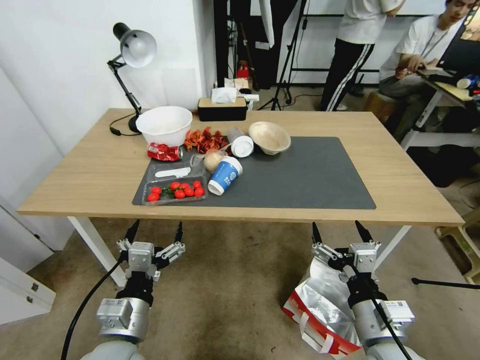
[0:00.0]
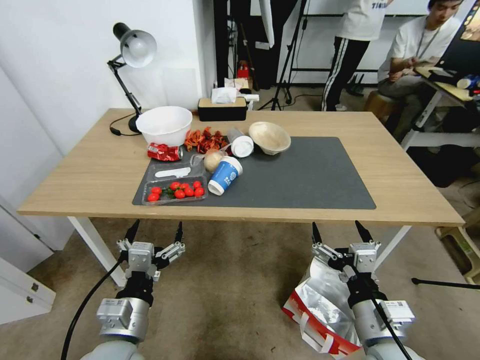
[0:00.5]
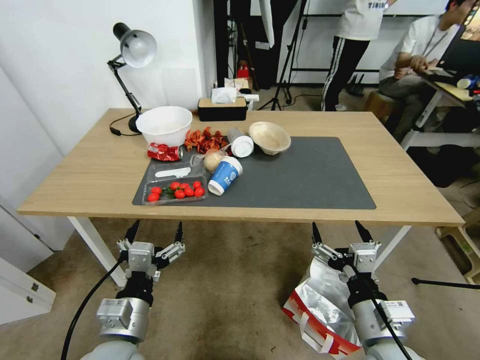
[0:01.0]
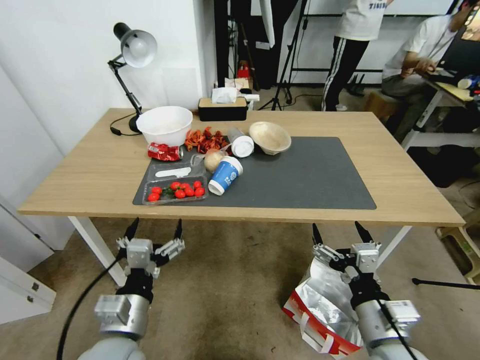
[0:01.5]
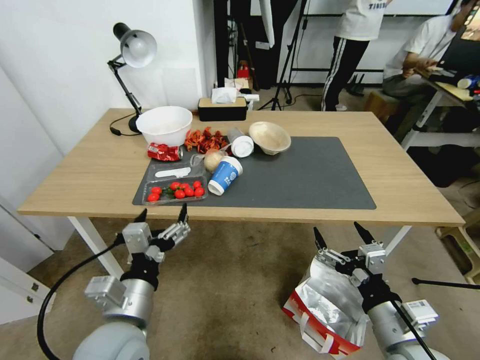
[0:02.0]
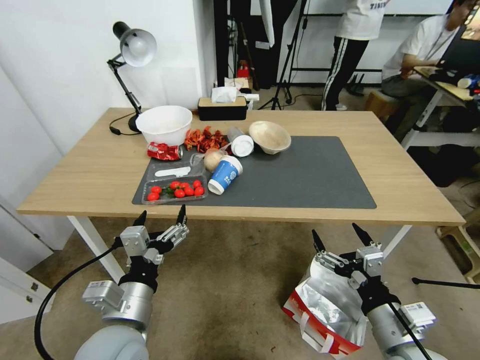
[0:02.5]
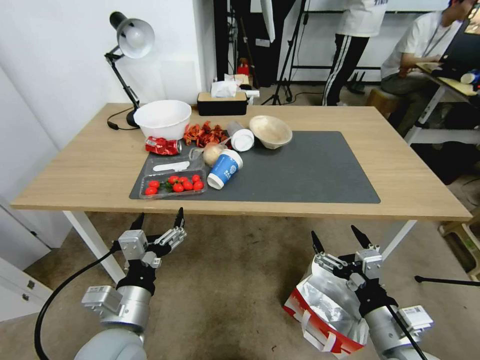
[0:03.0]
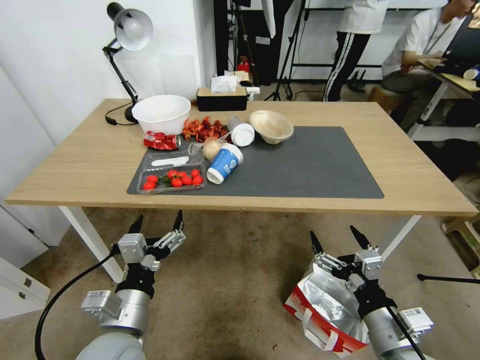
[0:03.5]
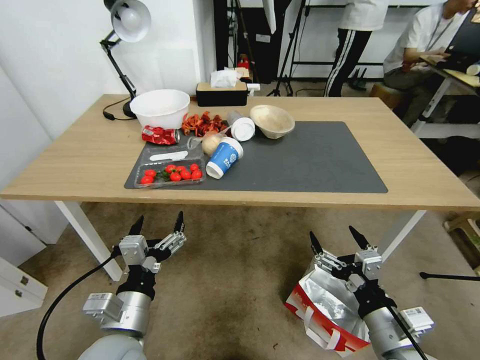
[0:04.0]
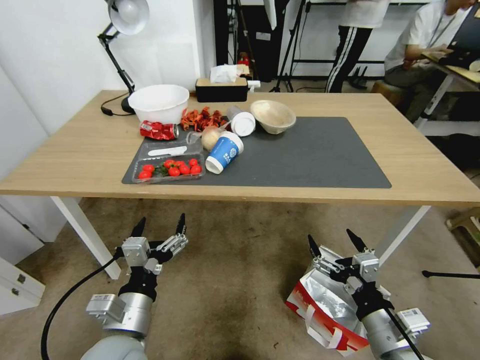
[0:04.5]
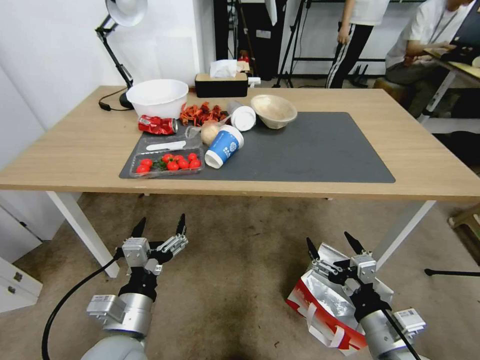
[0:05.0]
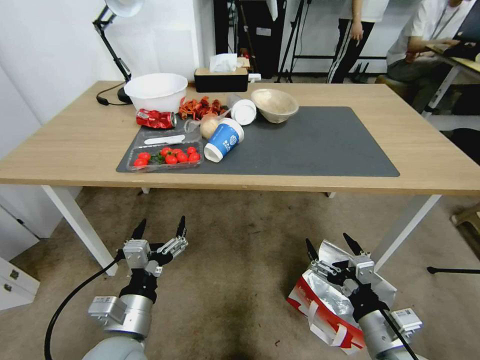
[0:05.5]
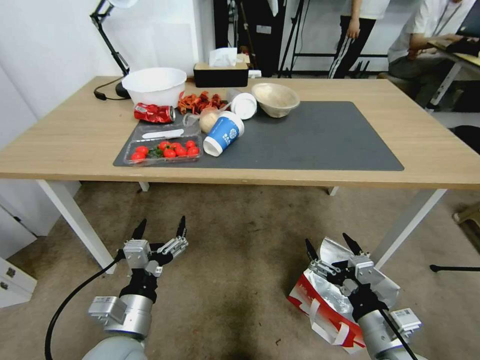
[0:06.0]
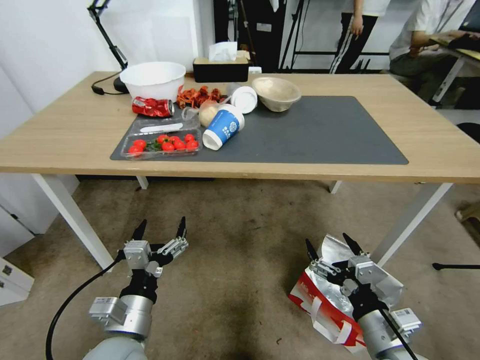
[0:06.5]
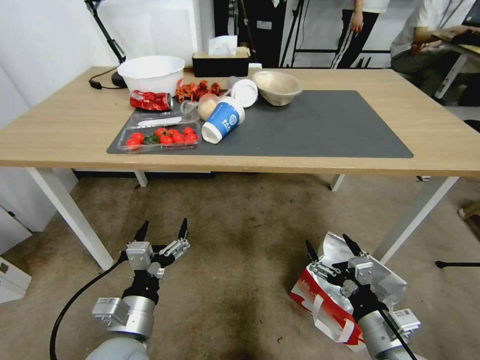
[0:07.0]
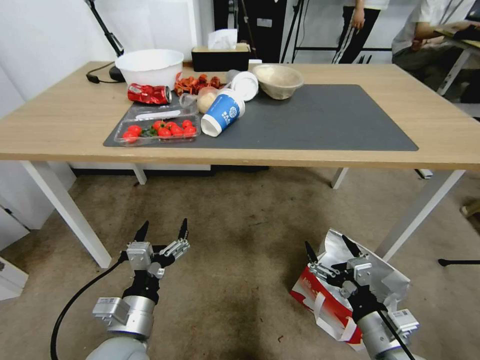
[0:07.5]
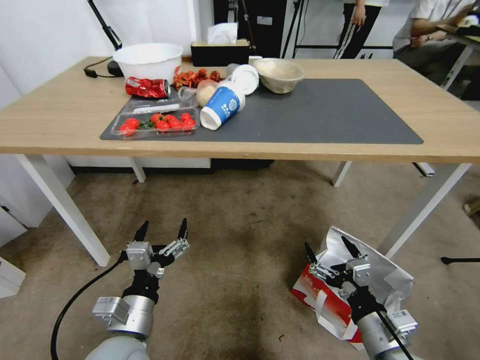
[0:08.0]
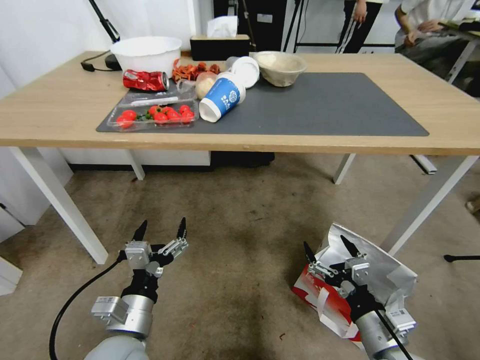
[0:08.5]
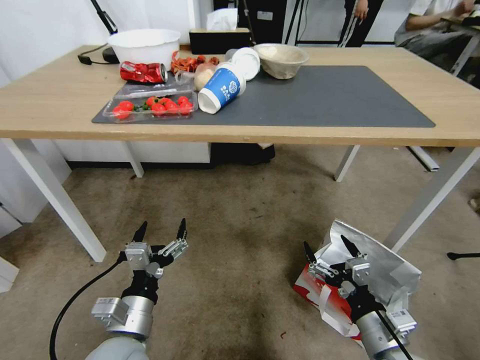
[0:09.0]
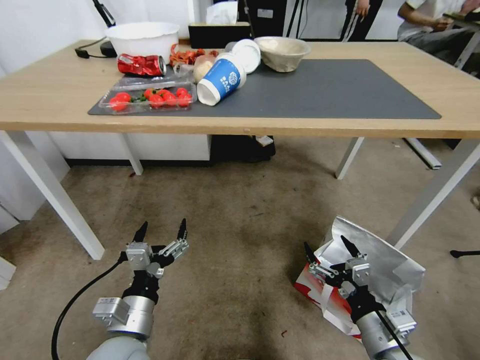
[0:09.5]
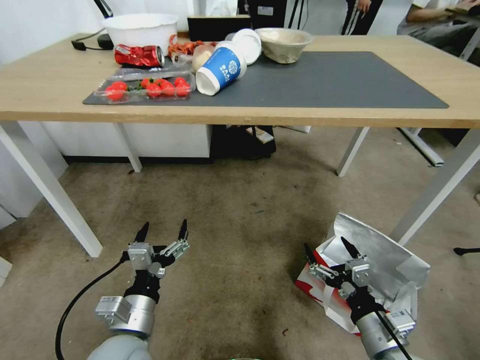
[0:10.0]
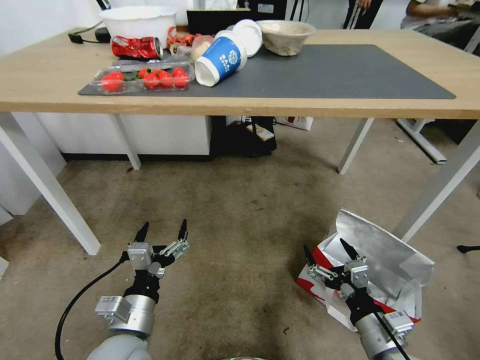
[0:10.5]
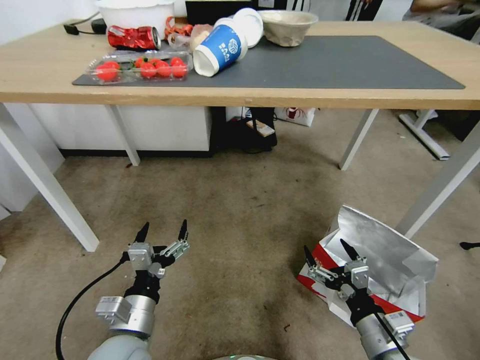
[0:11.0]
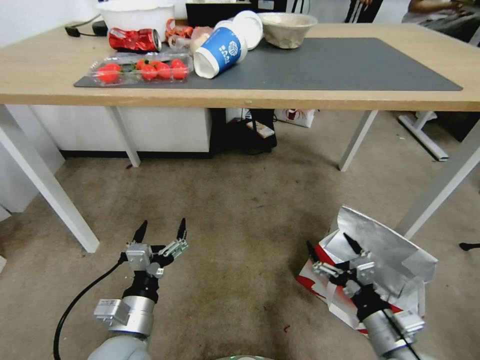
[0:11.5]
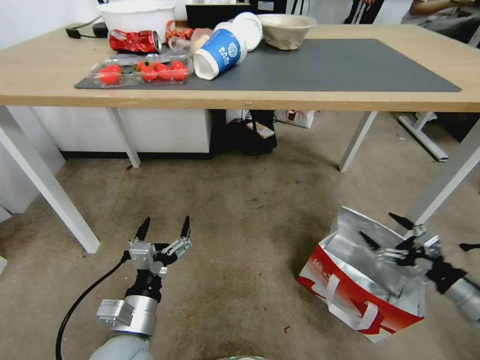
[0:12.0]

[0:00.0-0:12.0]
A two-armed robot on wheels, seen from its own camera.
Task of the whole recording: Pick up the food delivery bag from the floor and place it on the table.
0:10.0 to 0:12.0: The right gripper goes some 20 cm to the right.

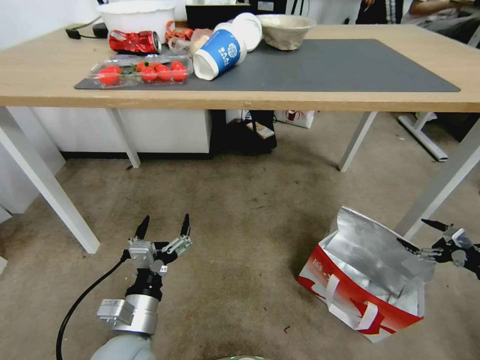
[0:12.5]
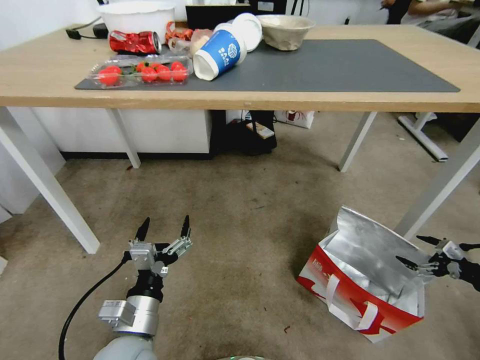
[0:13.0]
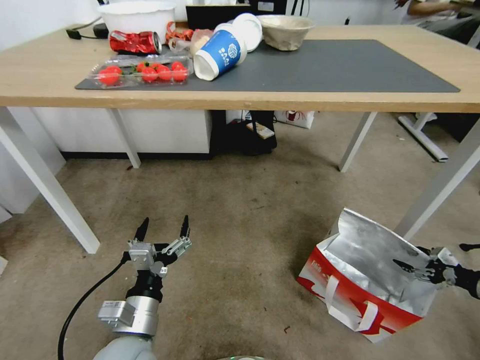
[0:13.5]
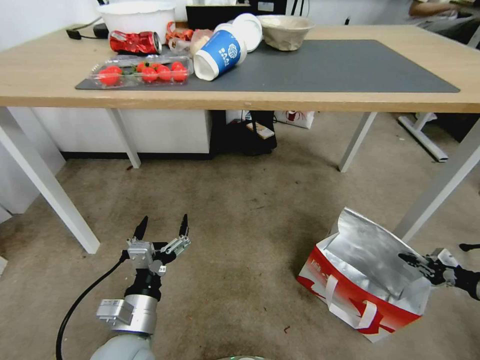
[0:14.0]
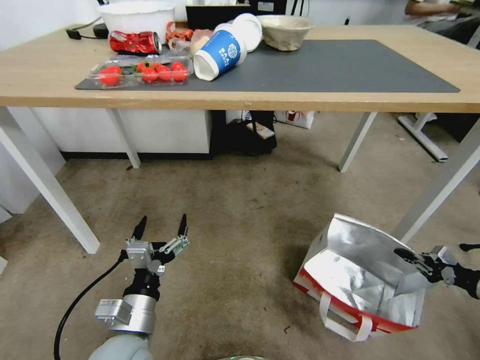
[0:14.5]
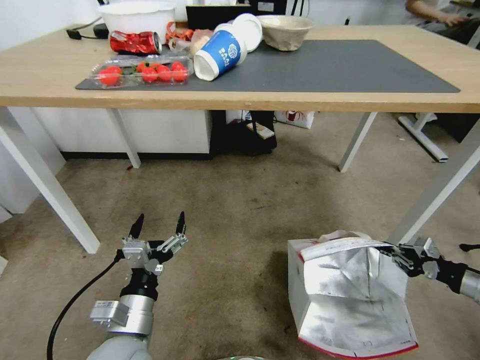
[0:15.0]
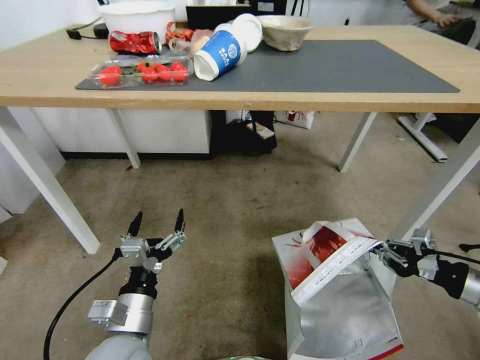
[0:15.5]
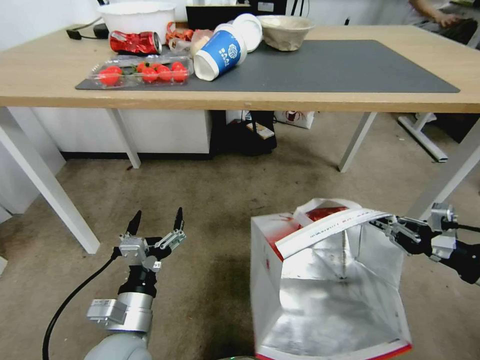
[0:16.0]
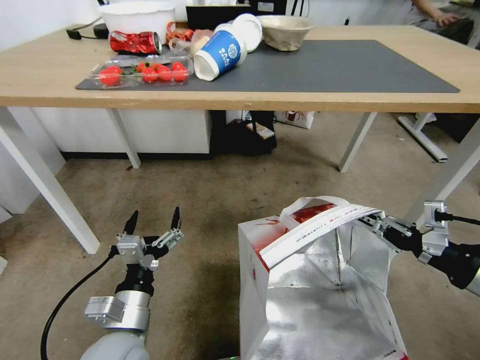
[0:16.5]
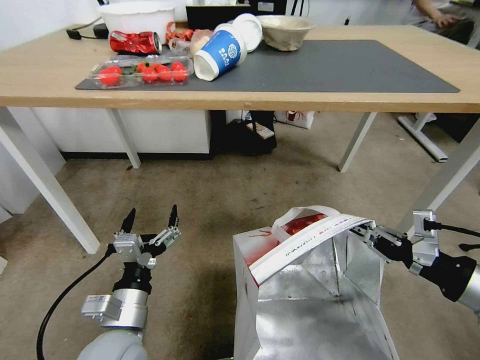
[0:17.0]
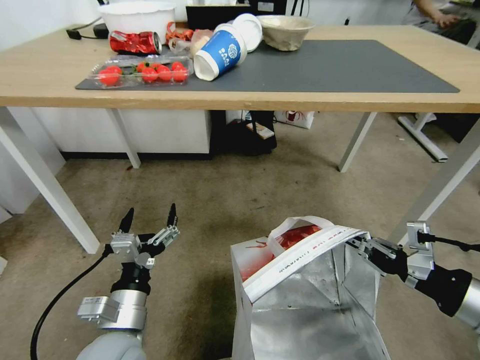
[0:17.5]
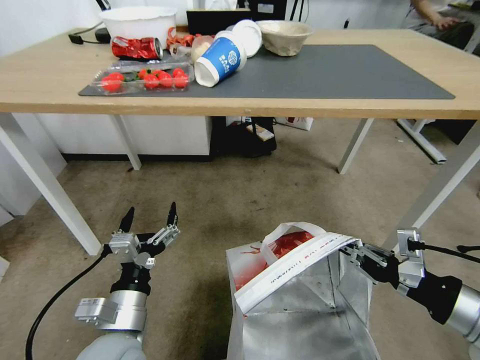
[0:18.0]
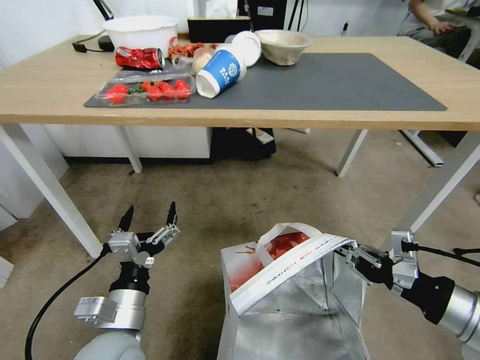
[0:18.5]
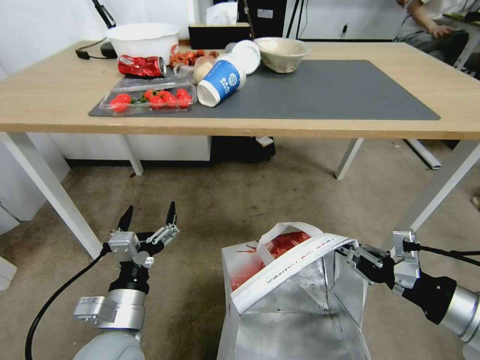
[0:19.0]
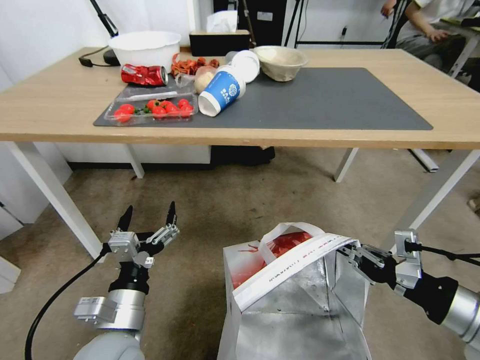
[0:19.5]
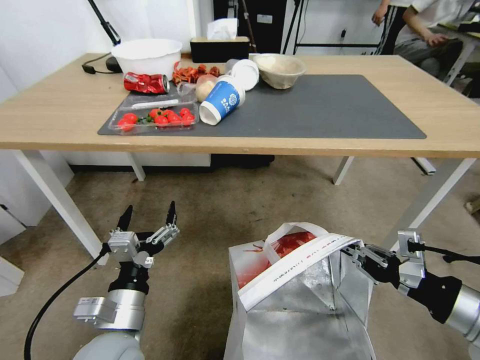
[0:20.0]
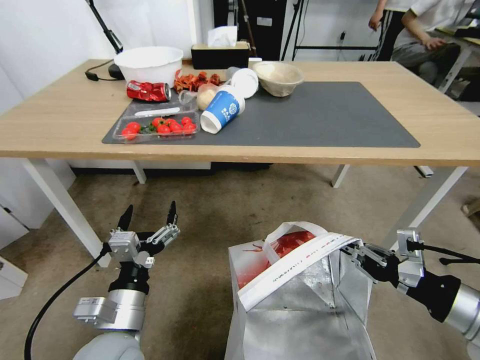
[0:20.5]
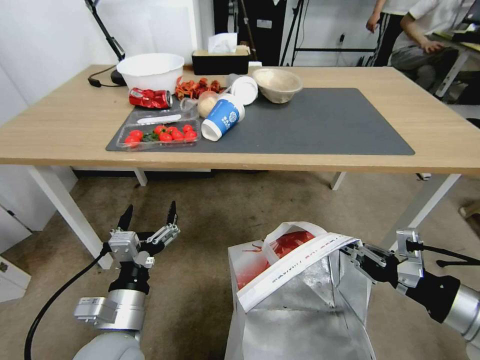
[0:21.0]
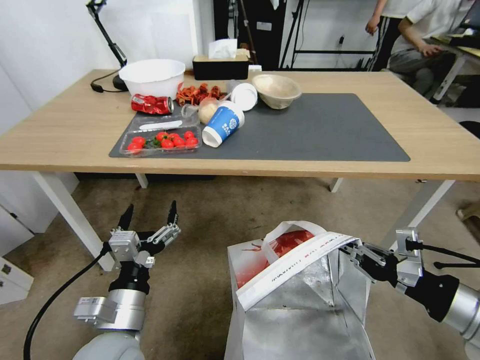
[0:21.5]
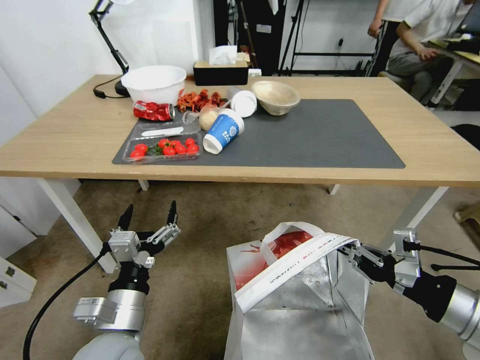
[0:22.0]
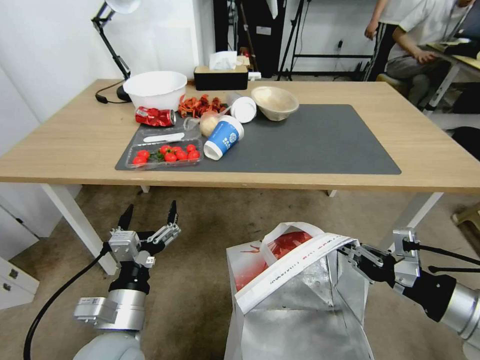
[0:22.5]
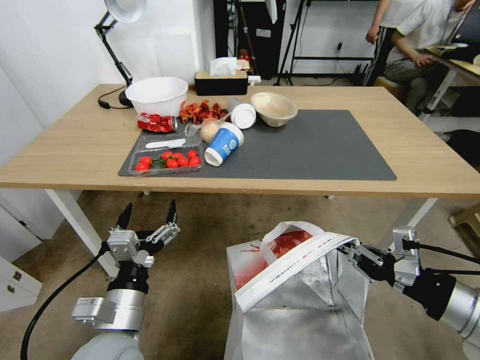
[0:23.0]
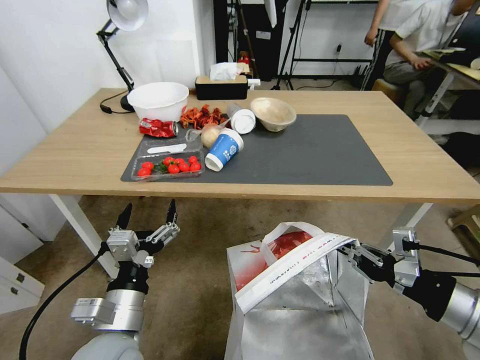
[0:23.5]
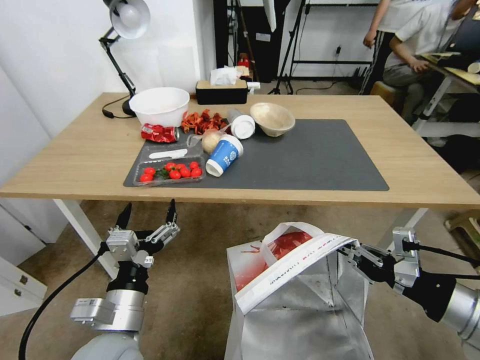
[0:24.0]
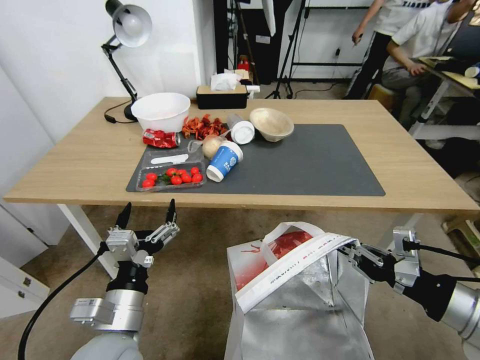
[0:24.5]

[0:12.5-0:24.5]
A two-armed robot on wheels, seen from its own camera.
Task of the whole recording: Pick up the food delivery bag from the floor and place it on the table.
0:12.5 to 0:14.5: The right gripper closes.
0:14.5 to 0:16.5: The right gripper travels to the left and upward by about 30 cm.
0:16.5 to 0:18.5: The right gripper ends up some 5 cm from where it was.

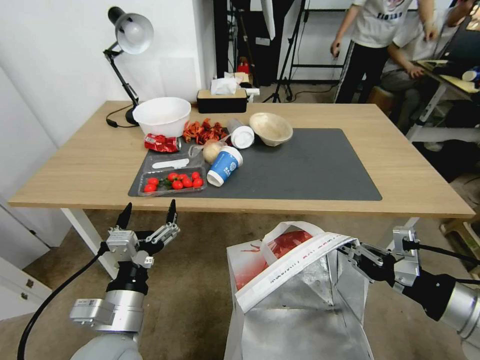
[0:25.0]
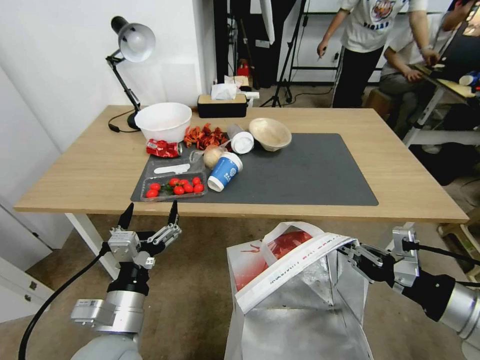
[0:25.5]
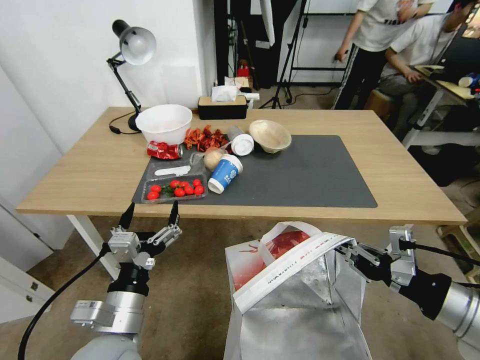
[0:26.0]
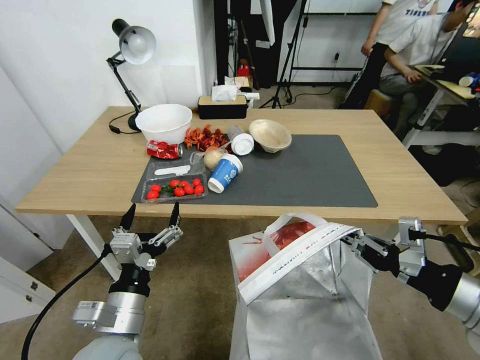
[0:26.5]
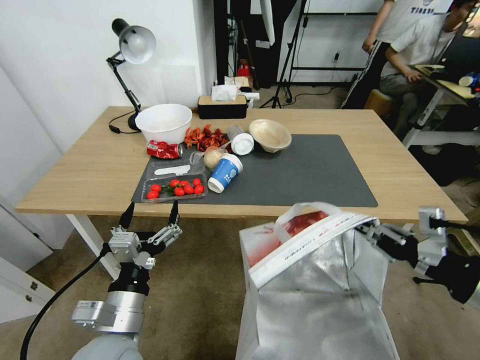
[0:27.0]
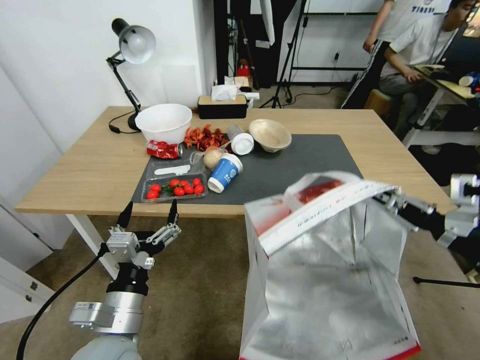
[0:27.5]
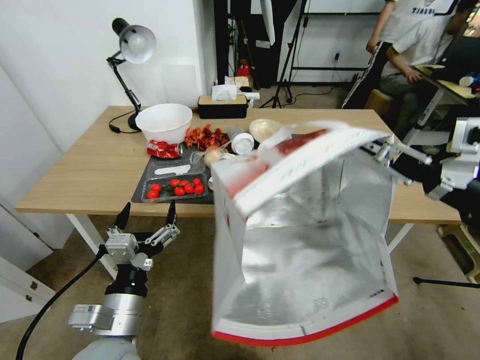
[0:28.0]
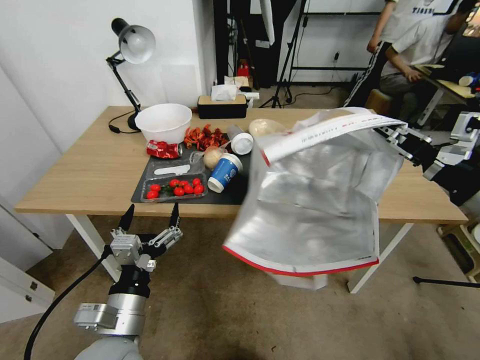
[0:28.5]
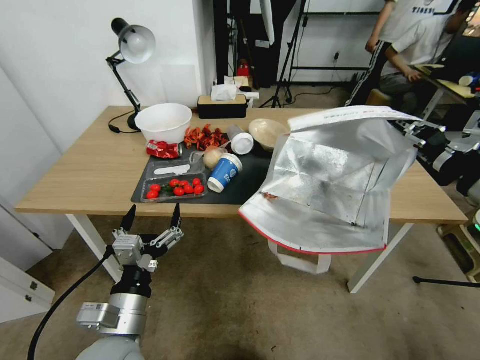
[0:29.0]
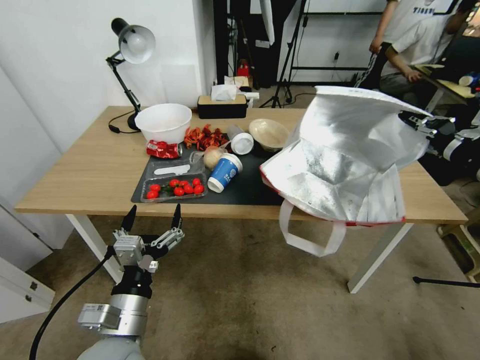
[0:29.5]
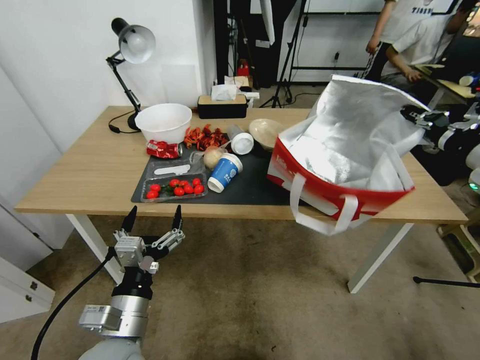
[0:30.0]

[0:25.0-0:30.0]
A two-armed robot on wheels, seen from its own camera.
Task of the whole recording: Pick up the food delivery bag from the floor and place it on the table.
0:25.0 to 0:27.5: The right gripper is displaced upward by about 10 cm.
0:27.5 to 0:30.0: The right gripper moves forward, about 15 cm.
